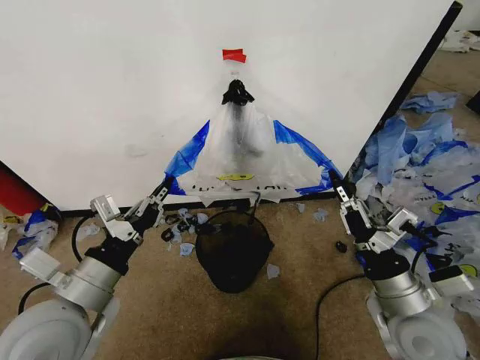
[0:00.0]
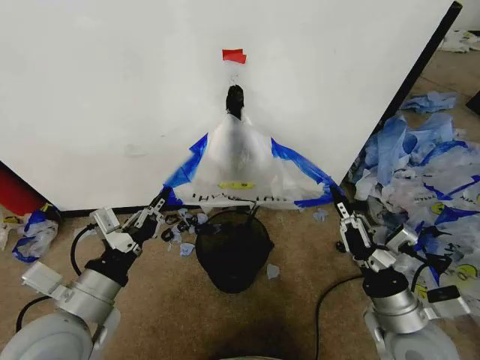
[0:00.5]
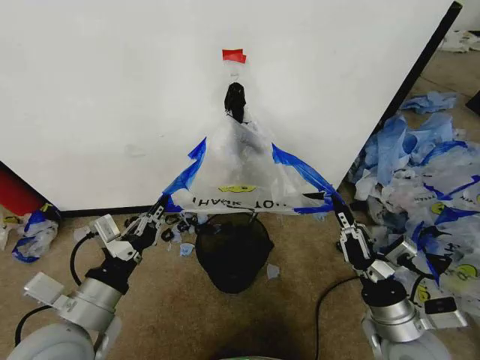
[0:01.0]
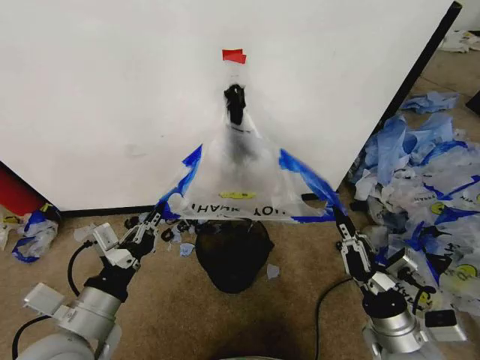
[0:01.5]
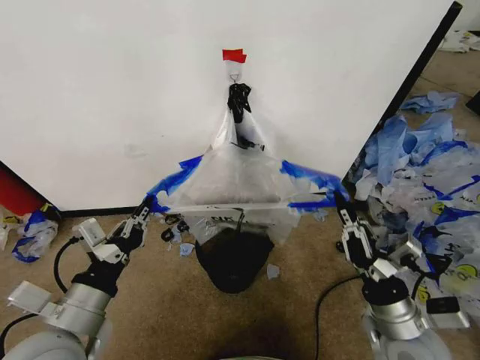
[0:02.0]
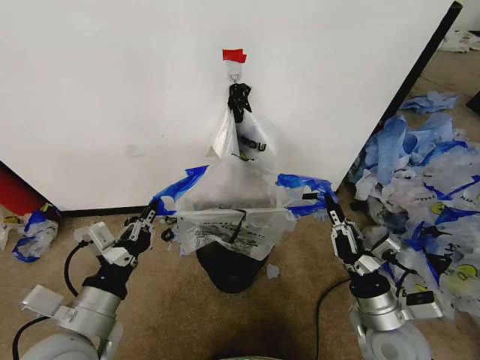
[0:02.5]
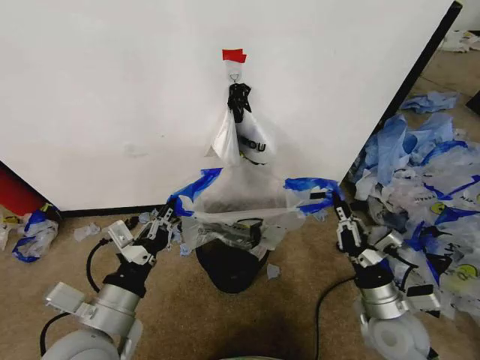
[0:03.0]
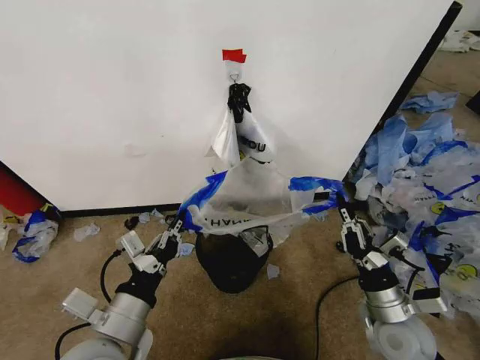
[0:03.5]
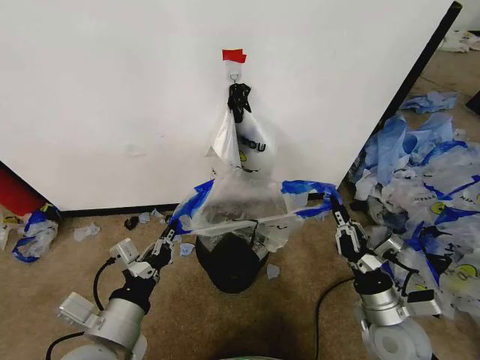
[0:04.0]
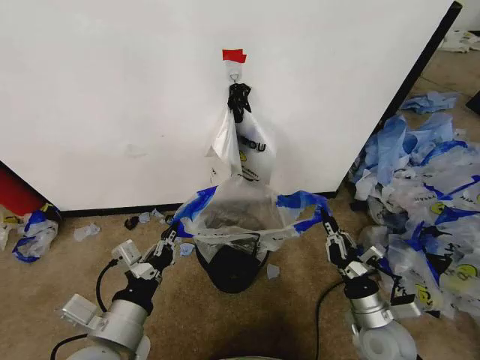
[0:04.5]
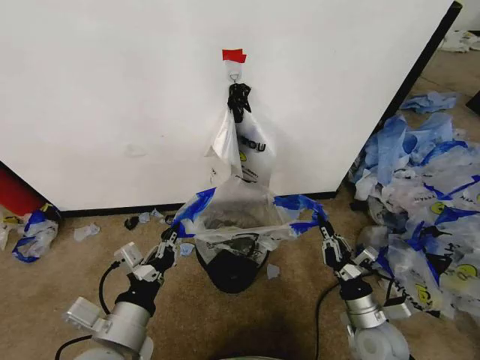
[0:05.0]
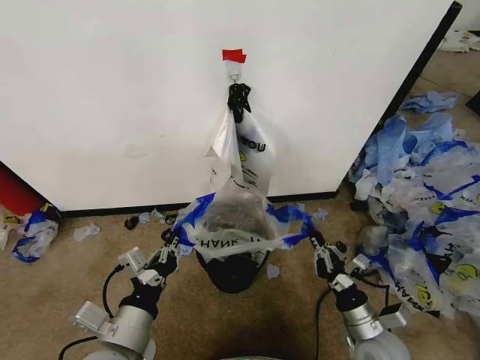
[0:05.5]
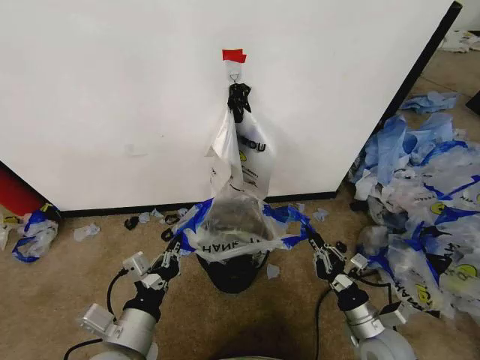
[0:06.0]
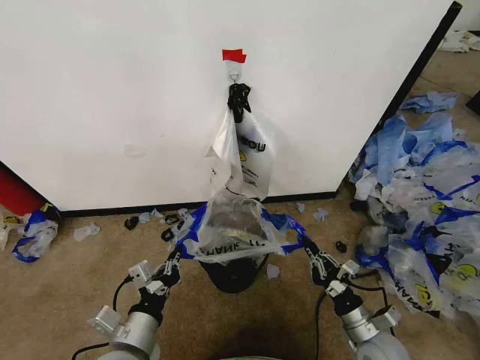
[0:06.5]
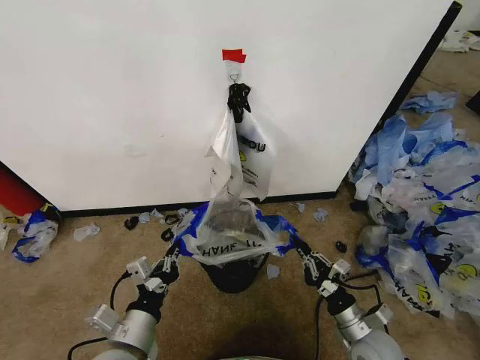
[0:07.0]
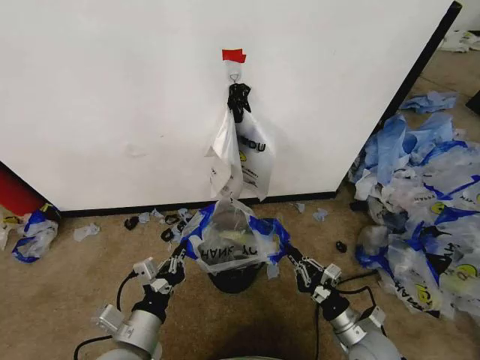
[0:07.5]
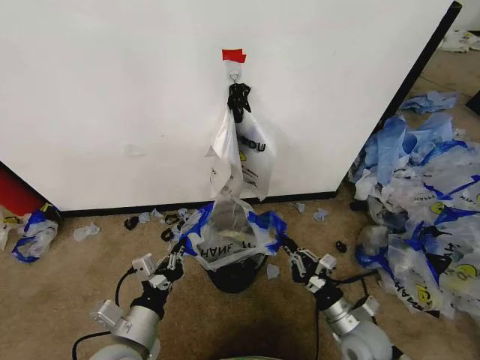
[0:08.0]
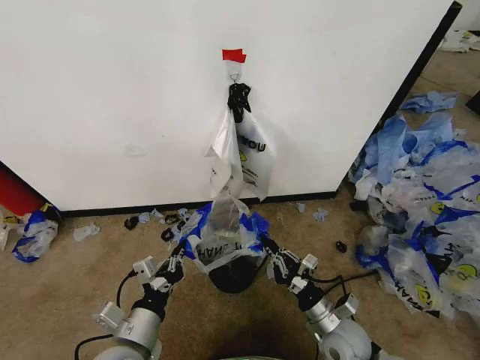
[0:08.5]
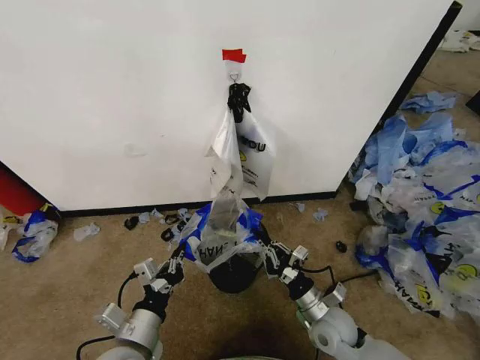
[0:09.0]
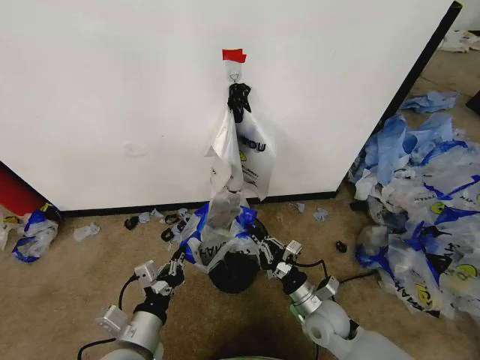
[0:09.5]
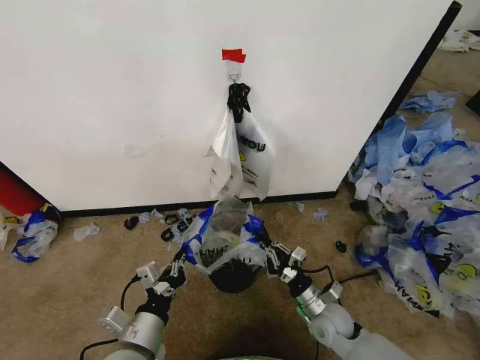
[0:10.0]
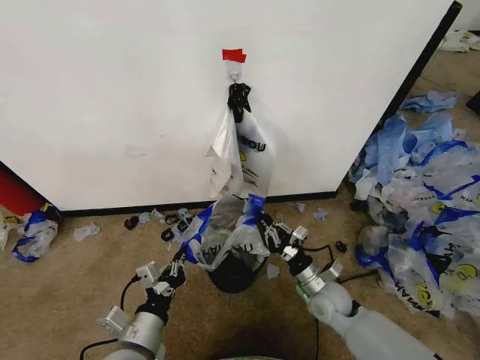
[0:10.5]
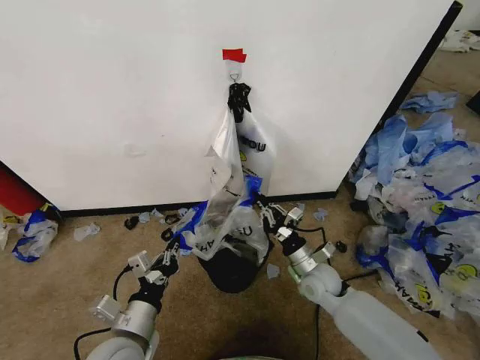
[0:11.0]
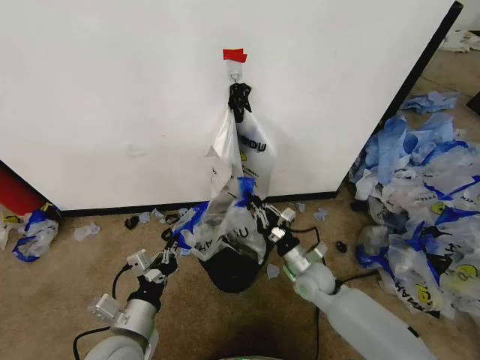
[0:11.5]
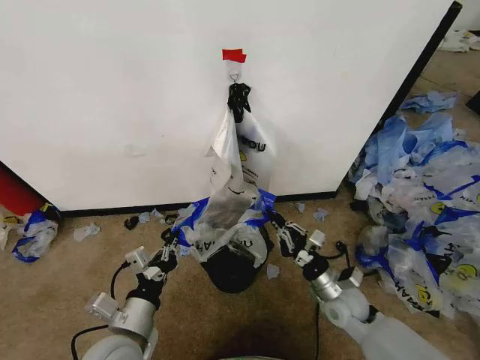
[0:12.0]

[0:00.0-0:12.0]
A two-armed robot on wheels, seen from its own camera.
Task of the whole recording: Pick up the garbage bag from the wall and place it over the trash bin.
0:02.0 to 0:04.0: The left gripper moves roughly 5 cm. Meanwhile the right gripper shifts by approximately 5 cm.
0:04.0 to 0:06.0: The right gripper shifts approximately 5 cm downward.
0:06.0 to 0:08.0: The grippers move only a little.
0:08.0 to 0:10.0: The right gripper shifts about 5 cm forward.
0:10.0 to 0:12.0: The right gripper is displaced upward by approximately 5 cm, and goes forward and returns, some 10 cm each way.

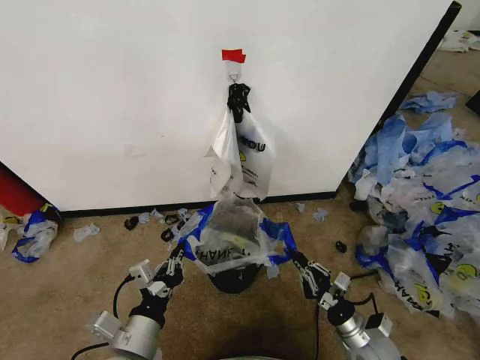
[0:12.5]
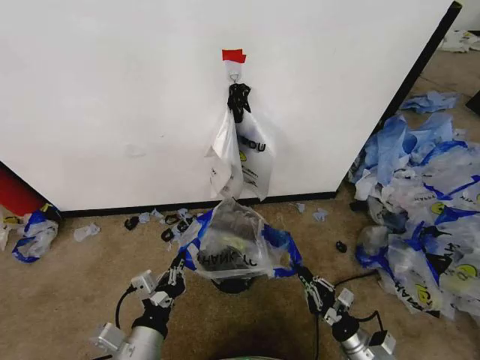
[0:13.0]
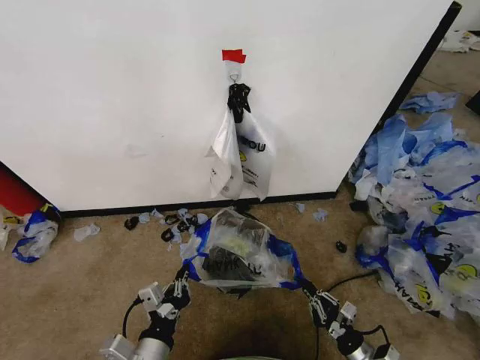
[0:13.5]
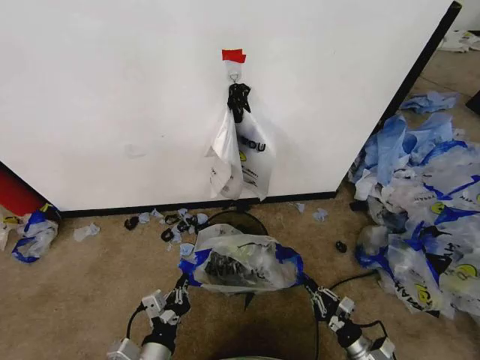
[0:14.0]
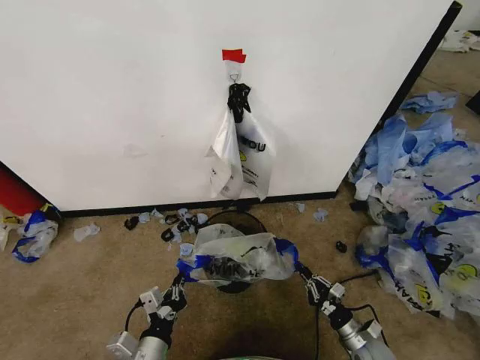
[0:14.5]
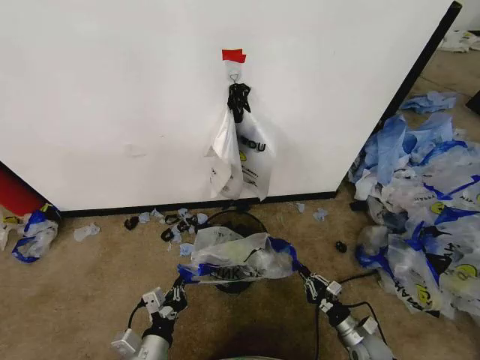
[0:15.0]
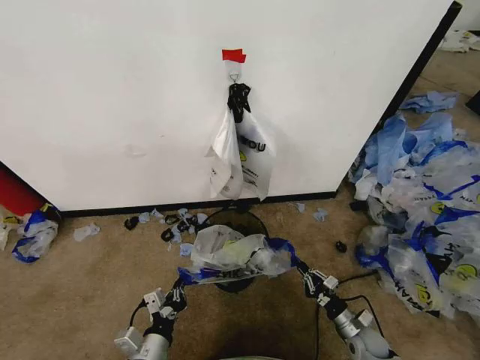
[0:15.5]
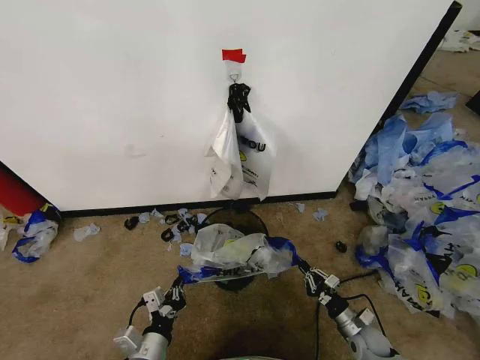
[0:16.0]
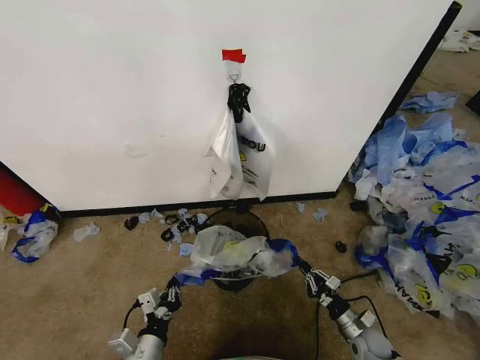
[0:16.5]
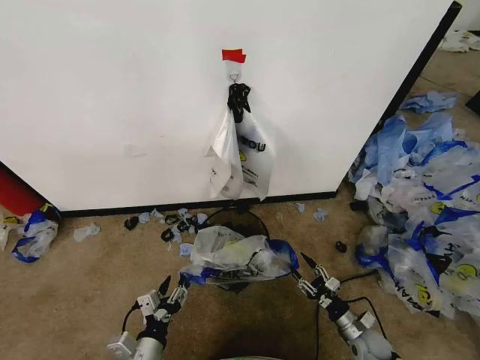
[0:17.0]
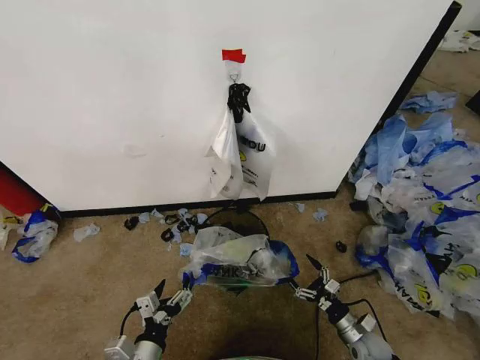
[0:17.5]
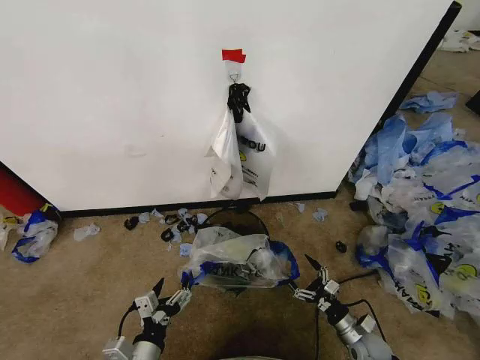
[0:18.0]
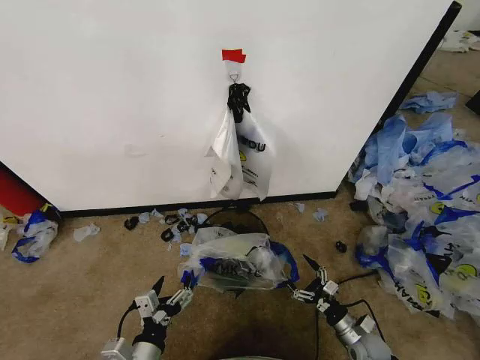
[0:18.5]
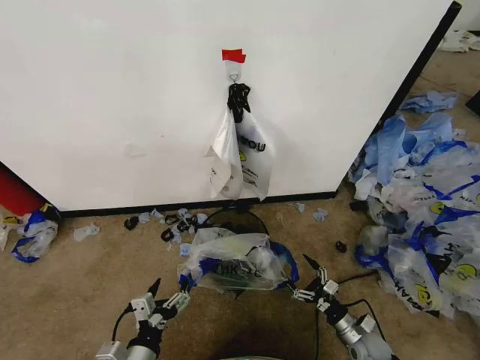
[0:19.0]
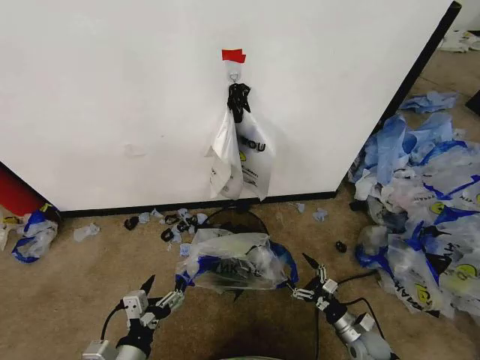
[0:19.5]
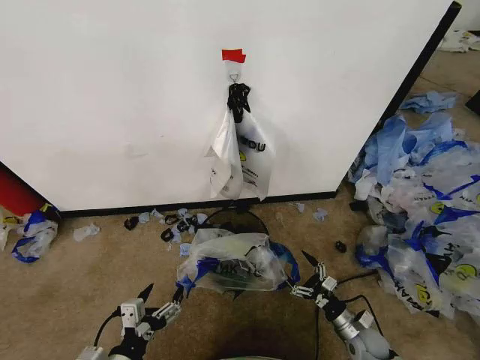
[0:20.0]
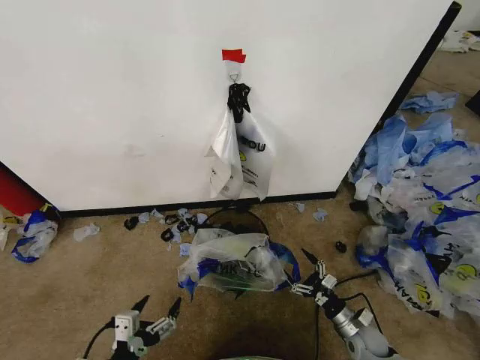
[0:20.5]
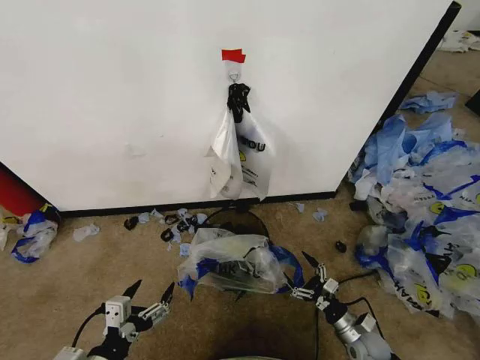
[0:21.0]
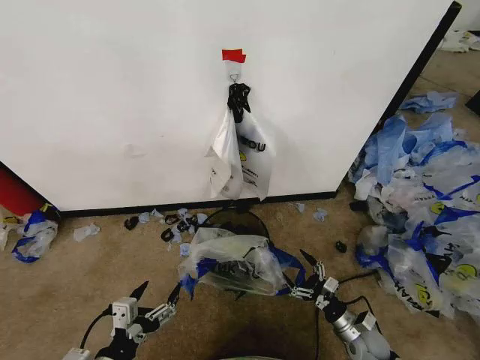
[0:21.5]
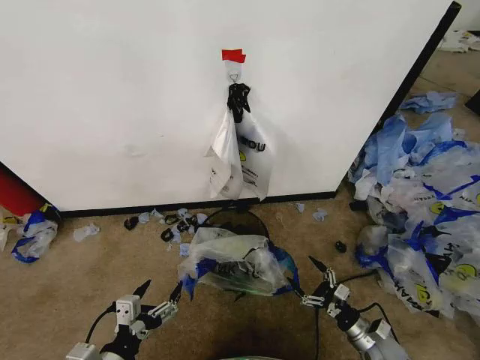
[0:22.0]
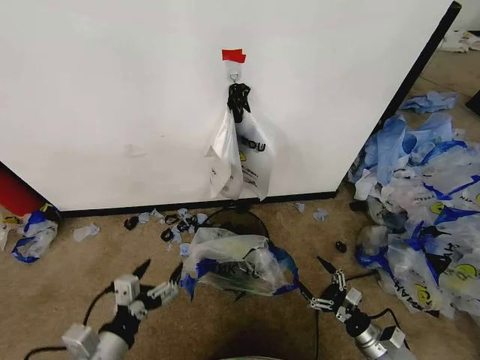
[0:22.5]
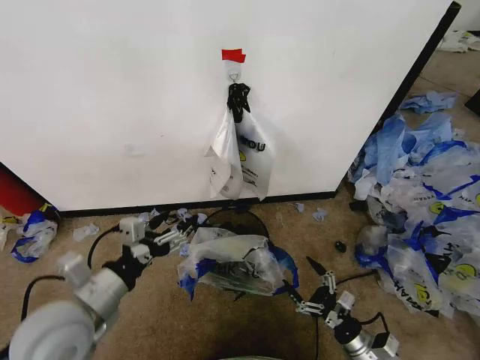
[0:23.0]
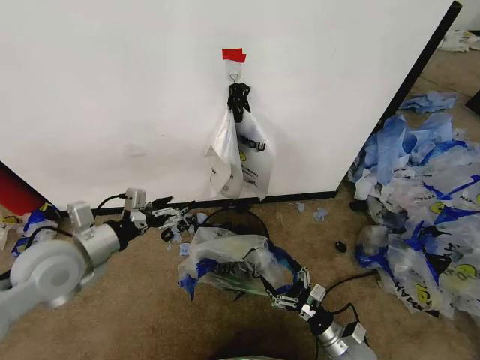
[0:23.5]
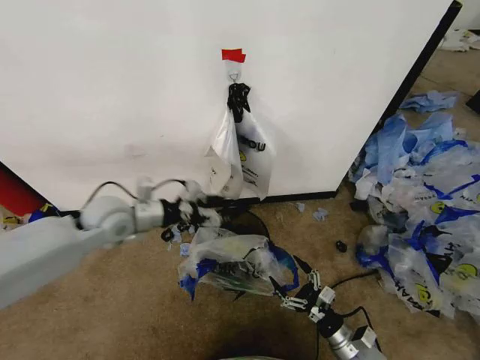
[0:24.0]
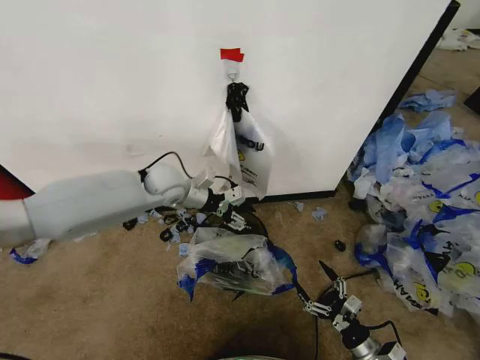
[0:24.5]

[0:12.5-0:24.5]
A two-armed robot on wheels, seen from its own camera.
Task of the whole recording: Pick up the garbage bag from the wall and place it over the trash bin.
0:12.5 to 0:14.5: The two grippers go approximately 10 cm downward.
0:14.5 to 0:16.5: There are only small adjustments of the grippers.
0:16.5 to 0:18.5: The left gripper opens; the right gripper opens.
0:18.5 to 0:20.5: The left gripper shifts approximately 5 cm to the left.
0:20.5 to 0:22.5: The left gripper ends up about 5 cm from where it was; the right gripper ends up about 5 cm from where it was.
0:22.5 to 0:24.5: The left gripper shifts approximately 40 cm forward, and closes up.

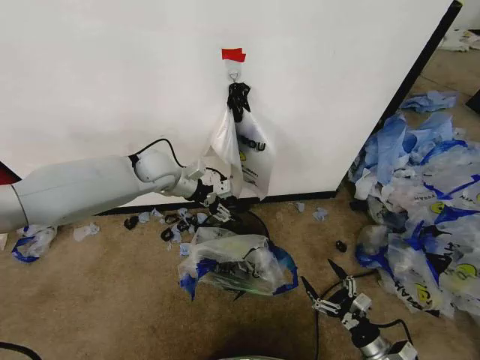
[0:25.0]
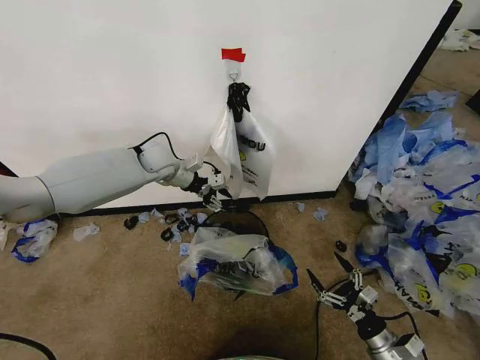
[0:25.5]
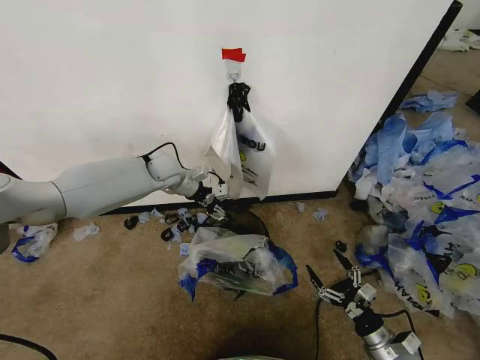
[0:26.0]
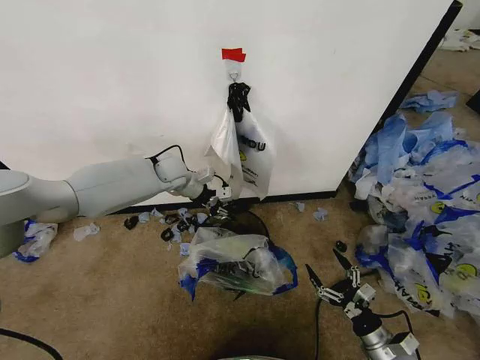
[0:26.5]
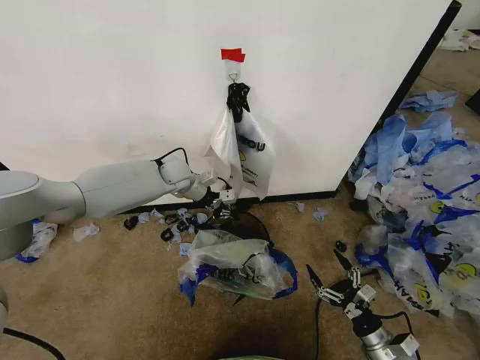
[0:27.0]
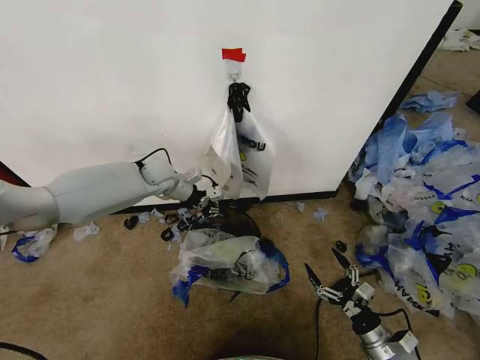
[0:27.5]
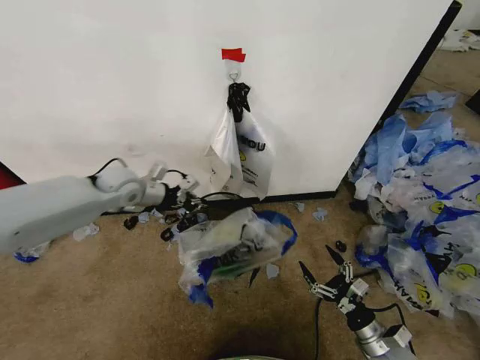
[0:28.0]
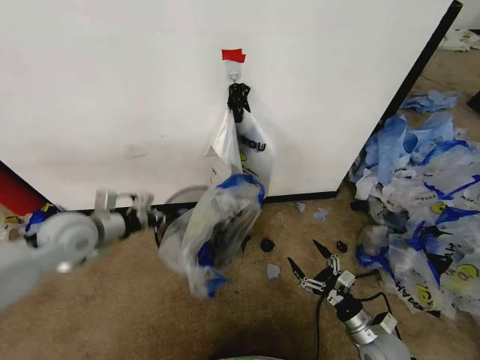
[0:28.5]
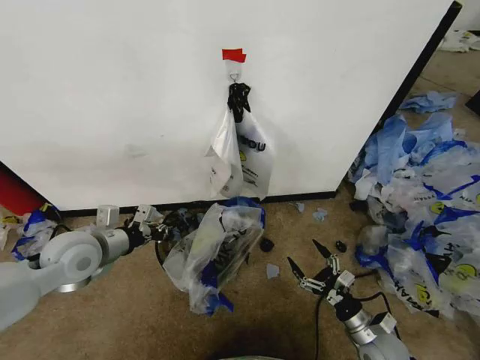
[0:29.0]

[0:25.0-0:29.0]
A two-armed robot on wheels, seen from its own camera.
Task of the whole recording: Pick up the garbage bag from the wall and place it over the trash bin.
0:25.0 to 0:27.0: The left gripper heads downward and forward, covering about 10 cm, and closes its fingers.
0:27.0 to 0:29.0: The left gripper heads backward and to the left, covering about 30 cm.
